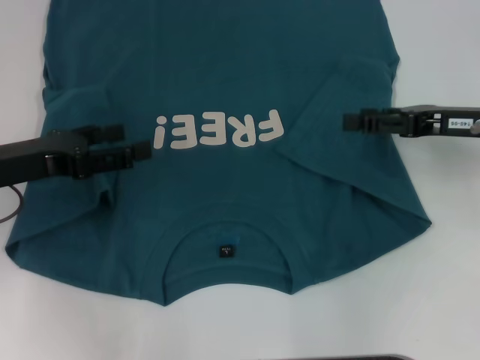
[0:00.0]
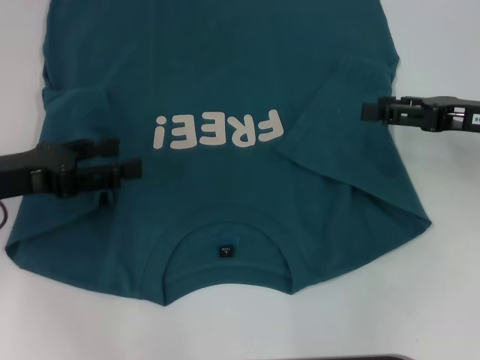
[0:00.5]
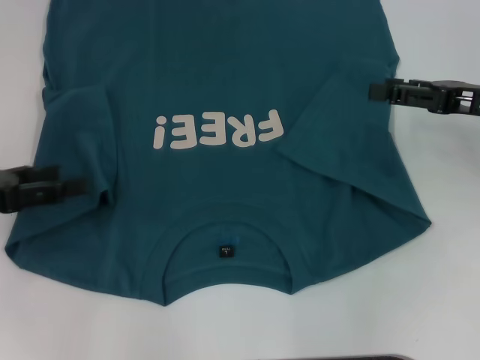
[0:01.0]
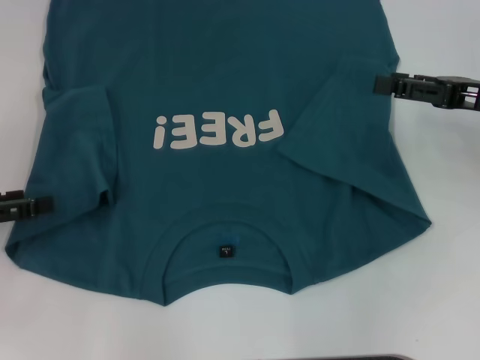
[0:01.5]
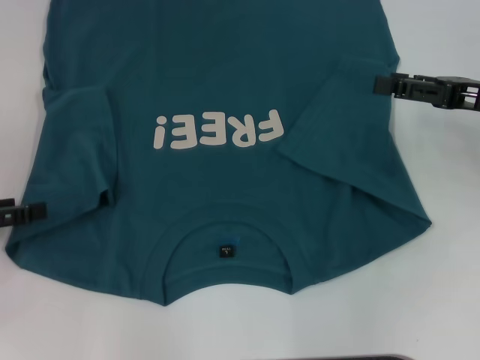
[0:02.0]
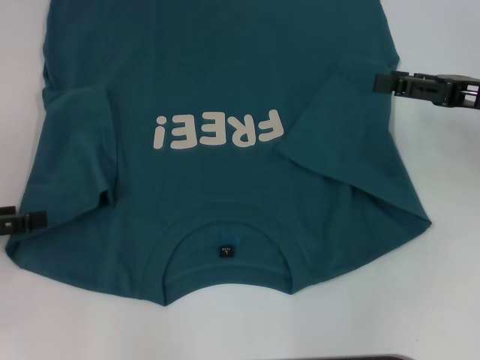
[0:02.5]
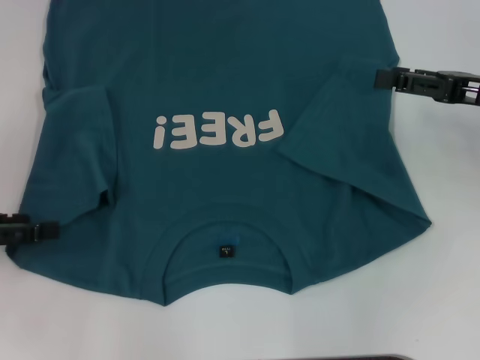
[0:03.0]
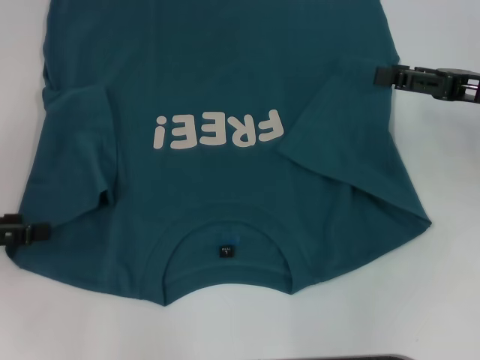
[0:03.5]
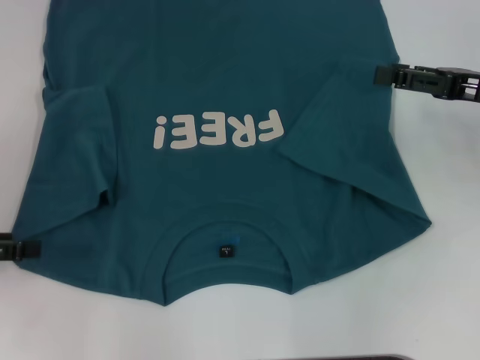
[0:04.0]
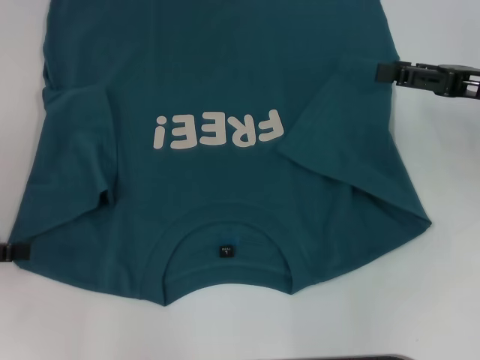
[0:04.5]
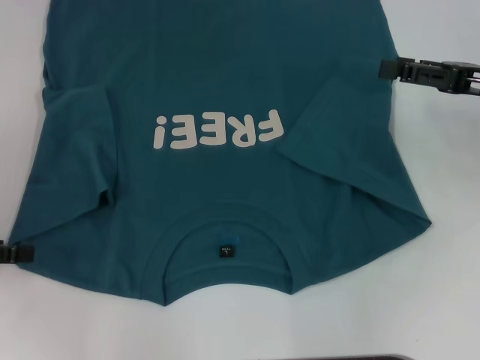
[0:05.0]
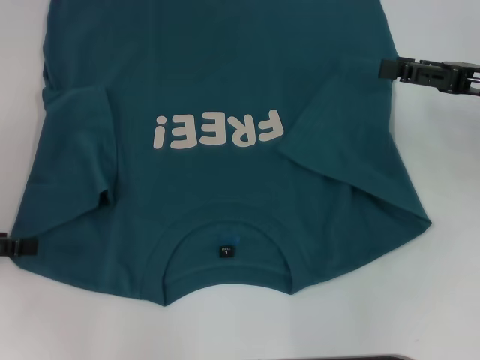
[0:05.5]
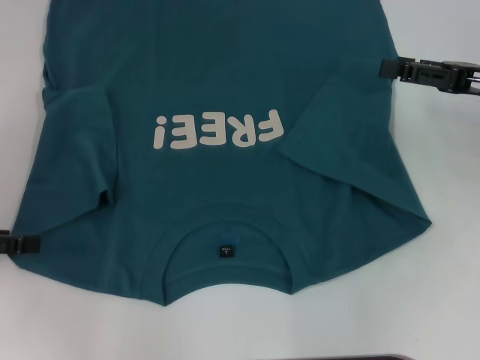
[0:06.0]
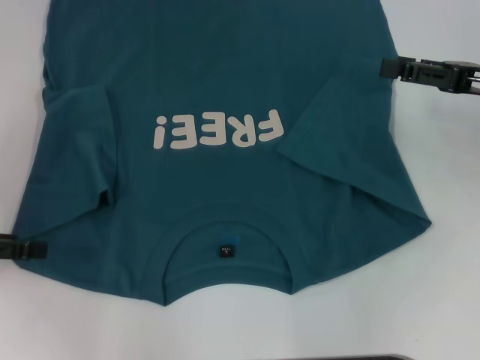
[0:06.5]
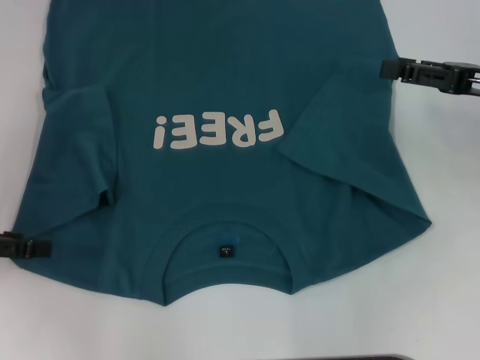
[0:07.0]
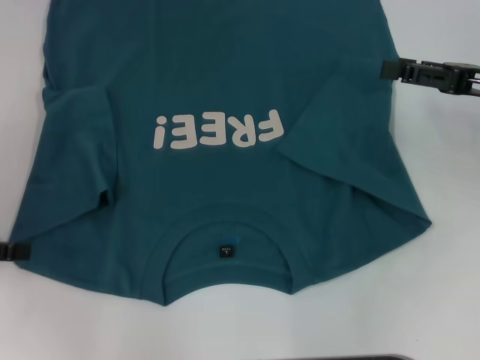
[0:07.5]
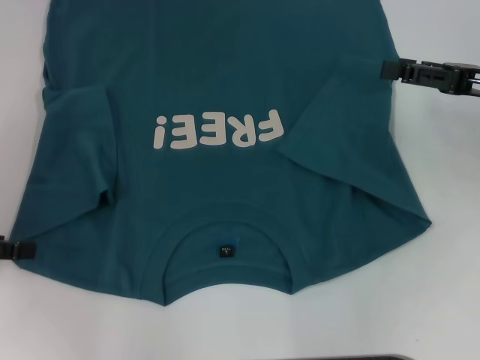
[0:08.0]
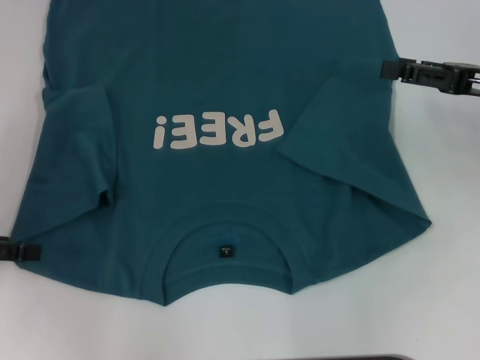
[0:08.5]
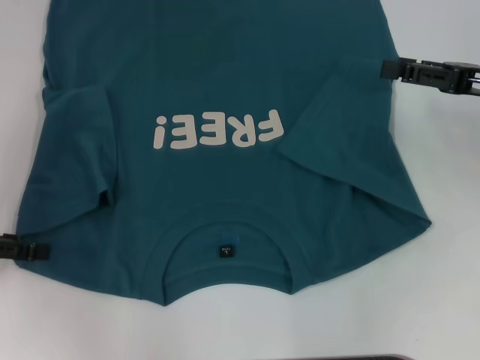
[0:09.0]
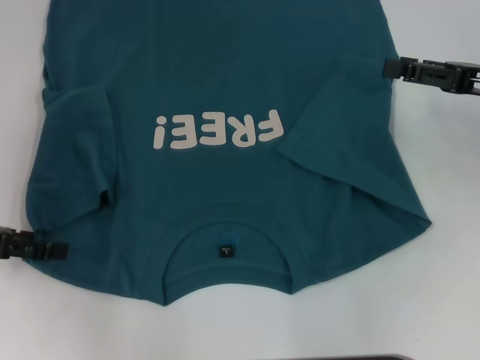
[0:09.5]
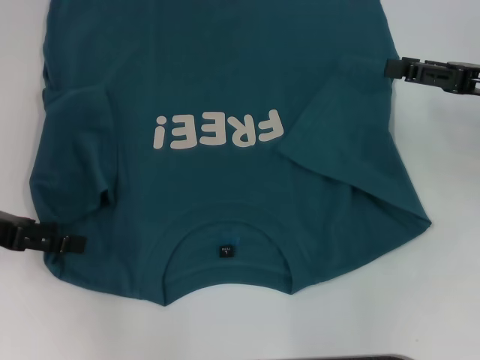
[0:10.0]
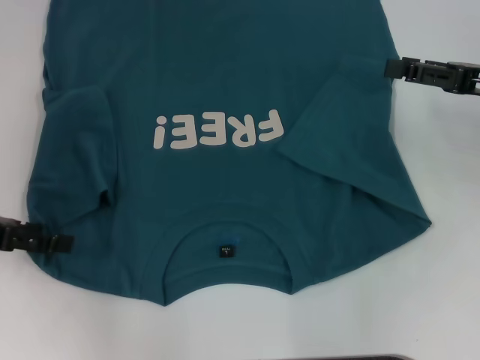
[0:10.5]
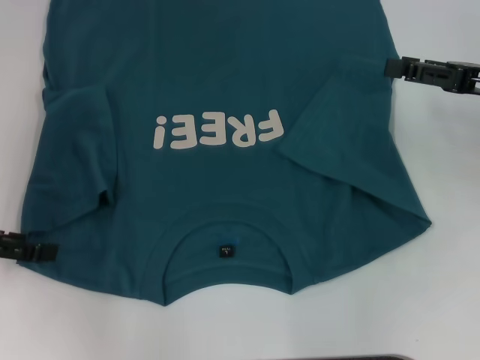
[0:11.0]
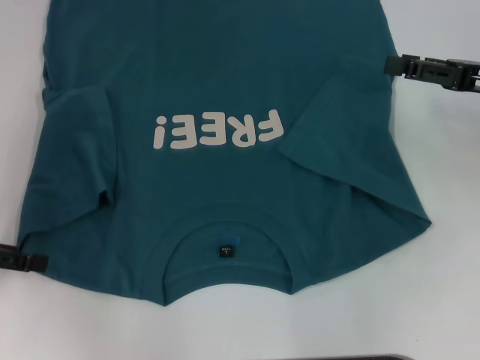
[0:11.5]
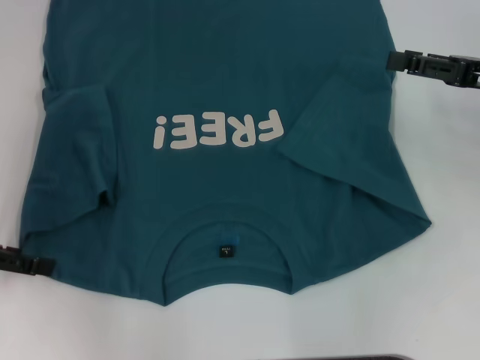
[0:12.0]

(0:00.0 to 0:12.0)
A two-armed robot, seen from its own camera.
0:00.0 - 0:02.0: The left gripper goes some 10 cm to the left.
0:02.0 - 0:04.0: The grippers move only a little.
0:04.0 - 0:06.0: Both grippers stay put.
0:06.0 - 0:08.0: Neither gripper changes place.
0:08.0 - 0:12.0: The grippers make only small movements.

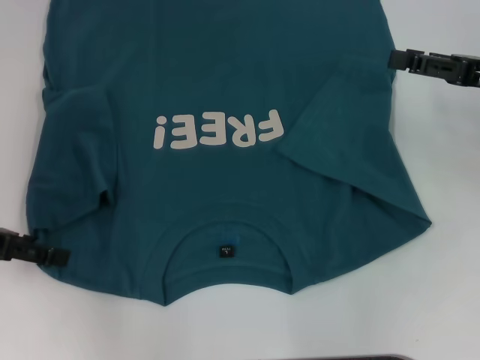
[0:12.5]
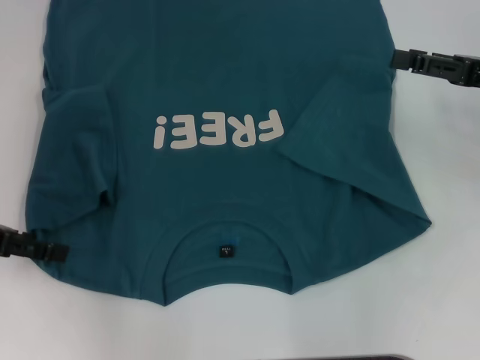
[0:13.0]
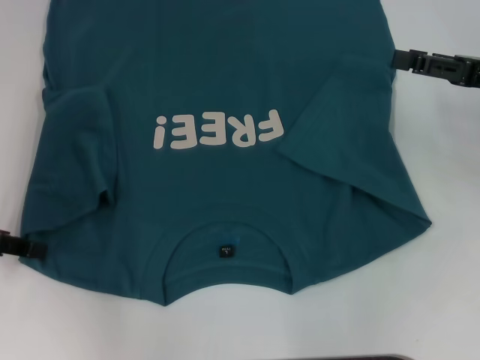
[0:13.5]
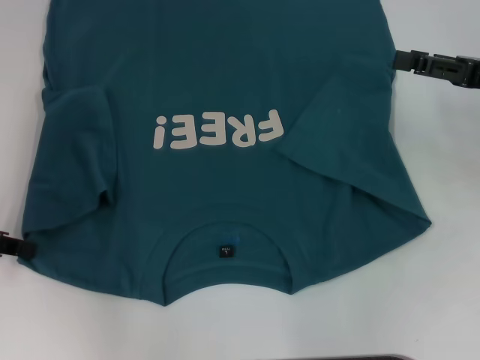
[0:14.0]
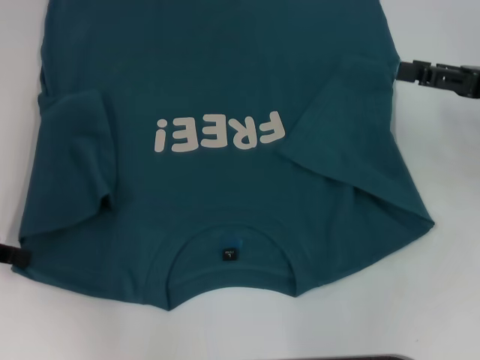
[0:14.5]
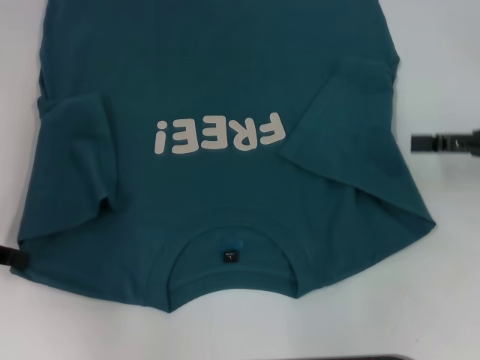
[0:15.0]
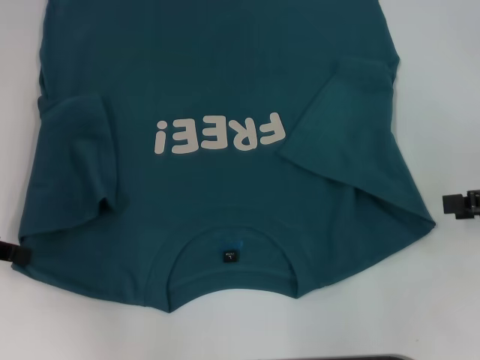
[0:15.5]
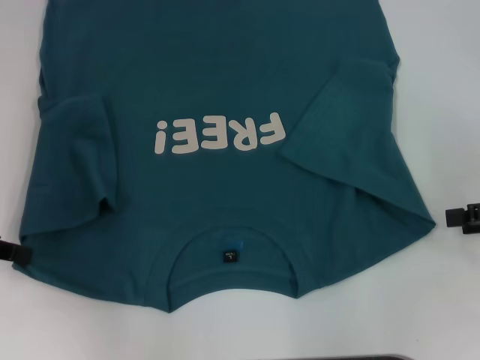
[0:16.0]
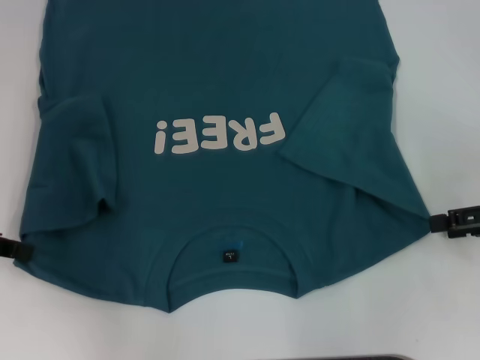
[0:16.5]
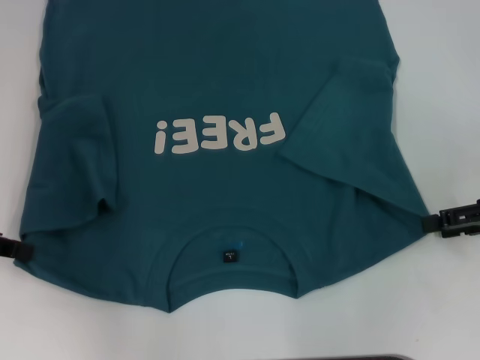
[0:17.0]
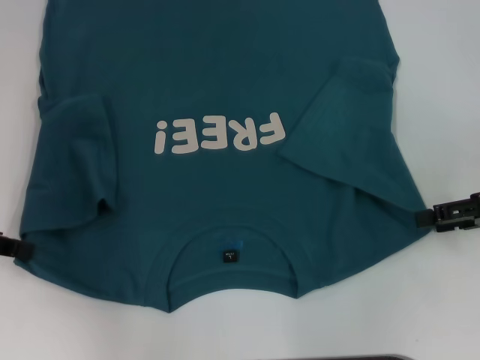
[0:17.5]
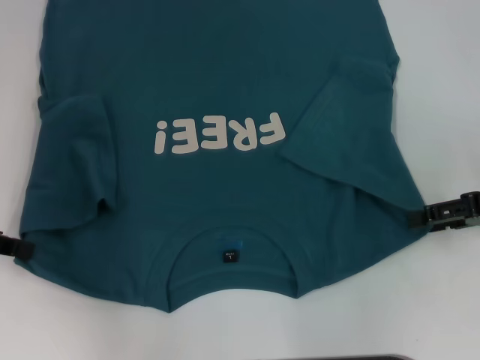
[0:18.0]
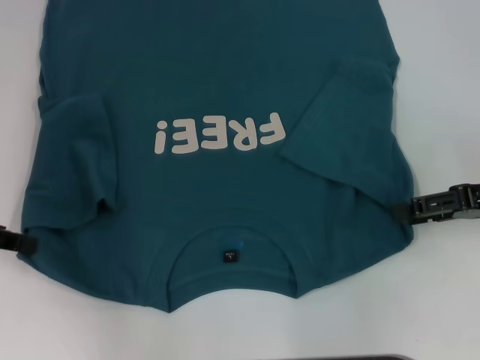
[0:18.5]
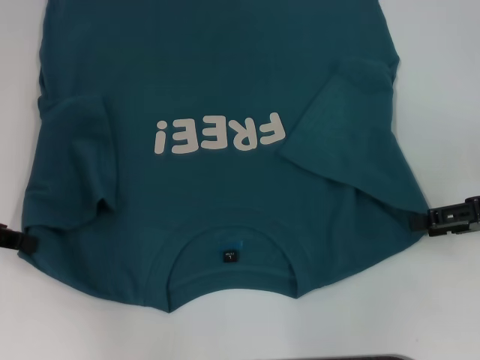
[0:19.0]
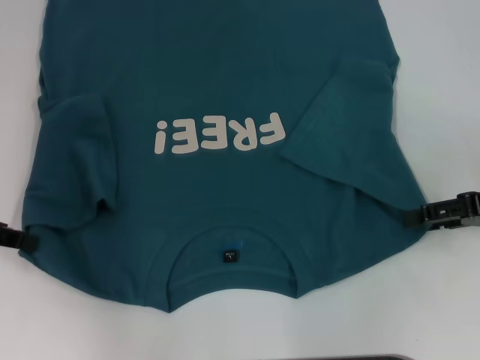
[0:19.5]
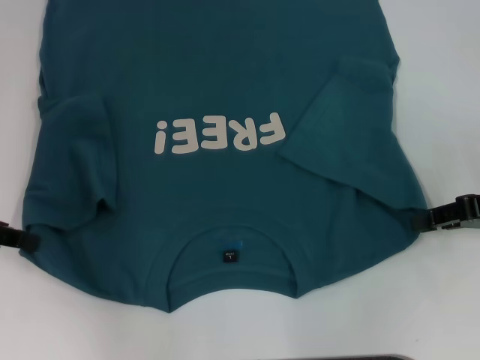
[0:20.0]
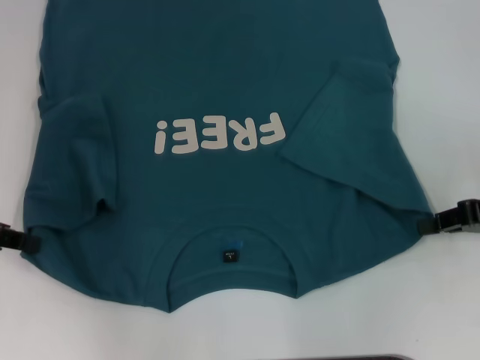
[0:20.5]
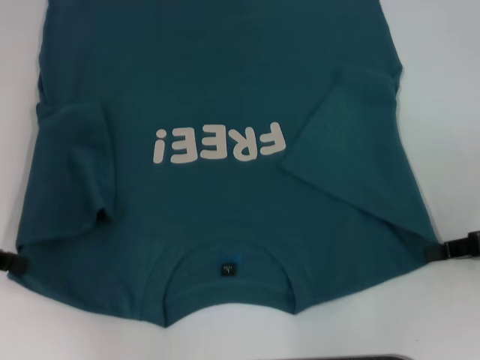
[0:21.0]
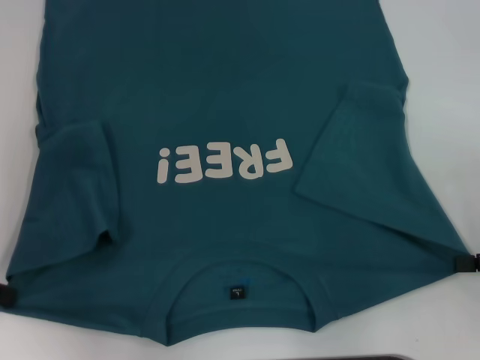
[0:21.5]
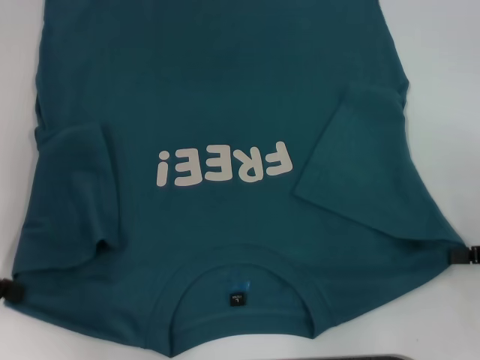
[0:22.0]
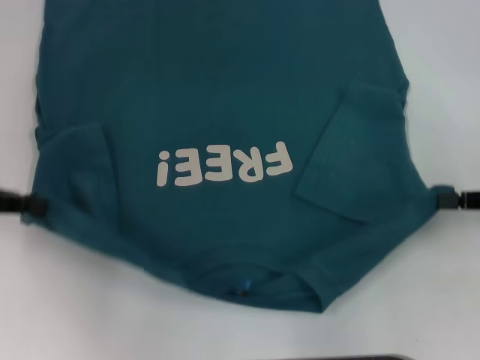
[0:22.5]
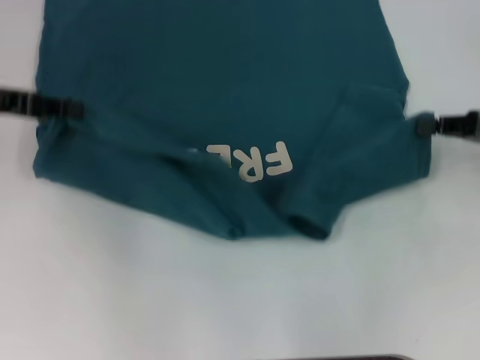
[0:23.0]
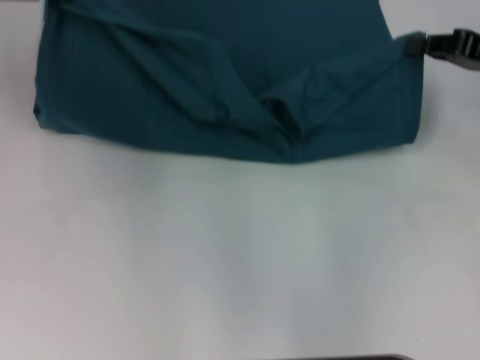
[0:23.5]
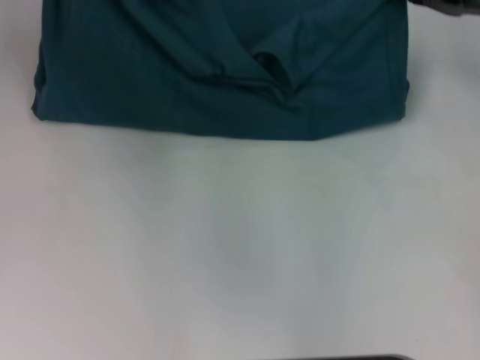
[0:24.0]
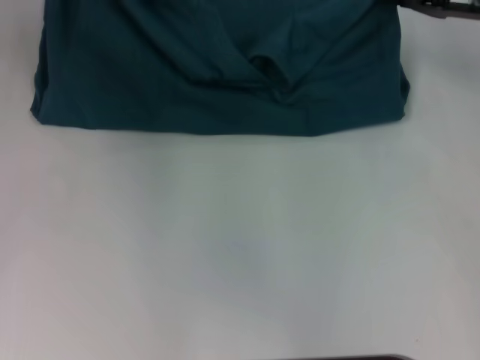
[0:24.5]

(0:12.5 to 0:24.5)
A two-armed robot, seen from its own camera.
Step, 0:14.5 - 0:20.0: Grab the bottom right corner with your right hand.
0:12.5 - 0:14.5: The left gripper closes its fingers.
0:14.5 - 0:16.5: The right gripper moves backward, roughly 5 cm.
0:16.5 - 0:18.5: The grippers stay close to where they were, moving slightly.
0:18.5 - 0:20.5: The right gripper closes its fingers.
0:22.5 - 0:24.5: The right gripper goes approximately 20 cm forward and to the left, while the left gripper travels forward and to the right by about 15 cm.

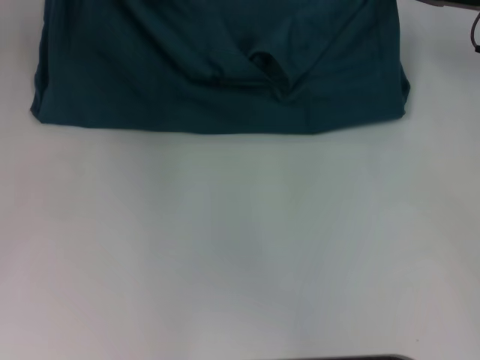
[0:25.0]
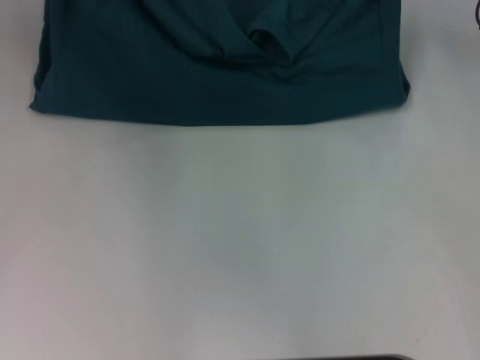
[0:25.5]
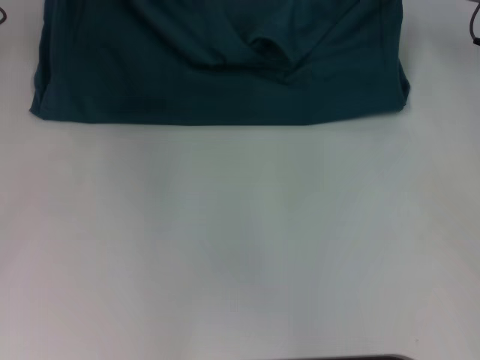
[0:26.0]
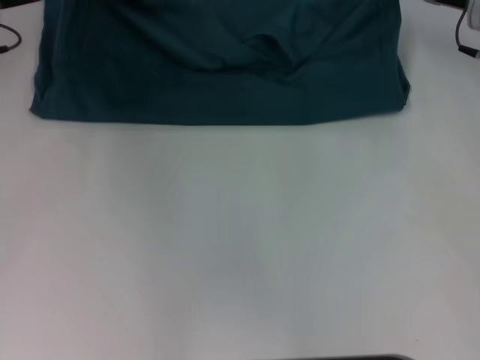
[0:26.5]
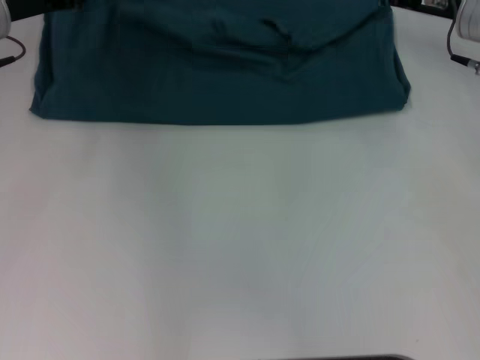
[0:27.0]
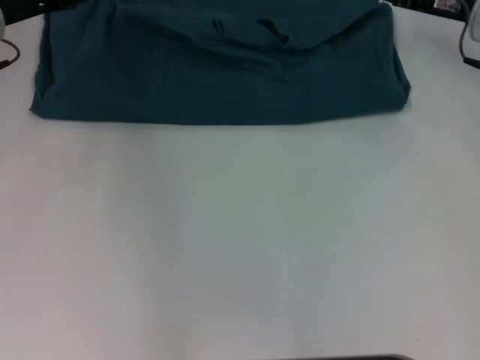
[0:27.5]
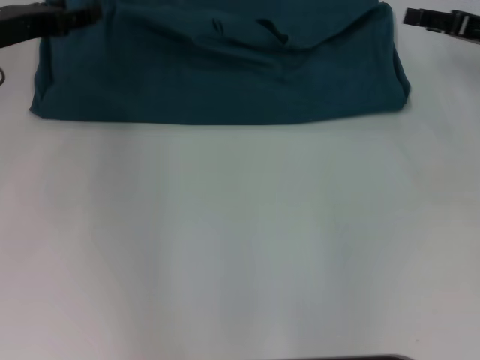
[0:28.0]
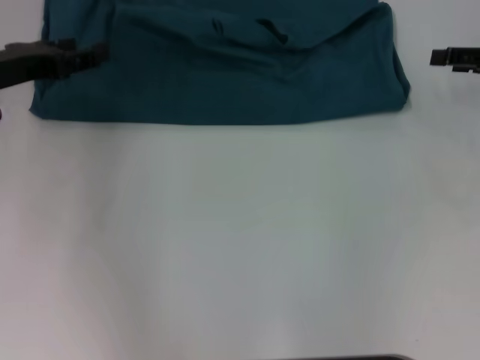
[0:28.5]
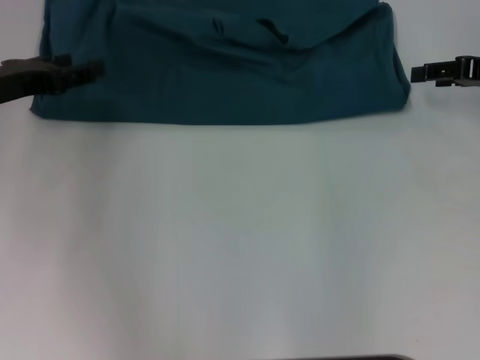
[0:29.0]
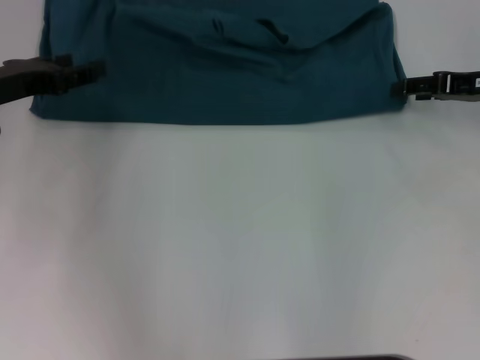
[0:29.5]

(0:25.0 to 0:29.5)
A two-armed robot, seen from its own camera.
Step, 0:25.0 - 0:27.0: Fold the clothes to the left.
Step, 0:25.0 - 0:27.0: Fold the clothes to the right.
0:25.0 - 0:27.0: The left gripper shifts about 5 cm downward.
0:27.0 - 0:29.5: The right gripper heads to the right and backward, covering roughly 10 cm, and opens up, while the left gripper goes roughly 10 cm backward, and opens.
